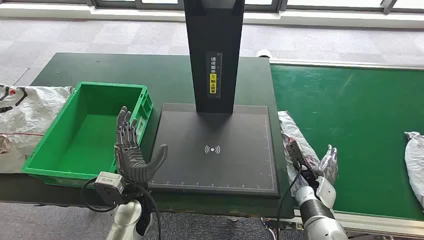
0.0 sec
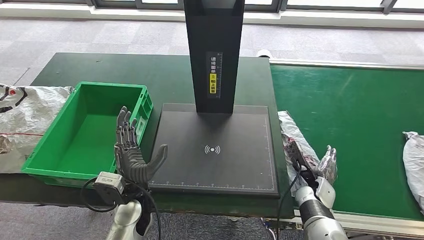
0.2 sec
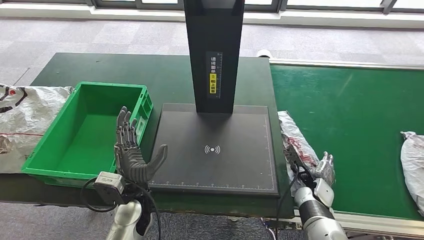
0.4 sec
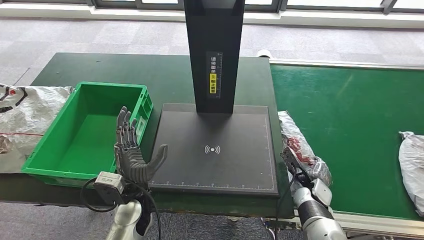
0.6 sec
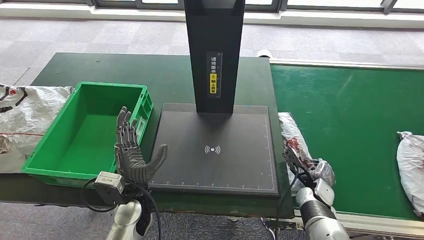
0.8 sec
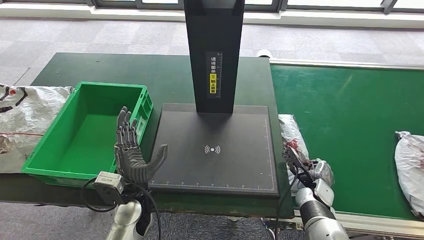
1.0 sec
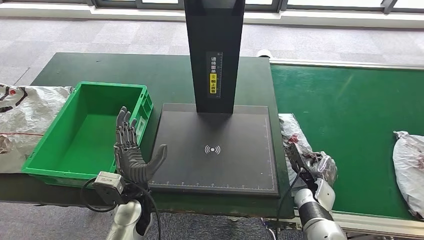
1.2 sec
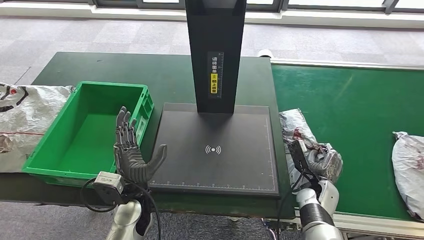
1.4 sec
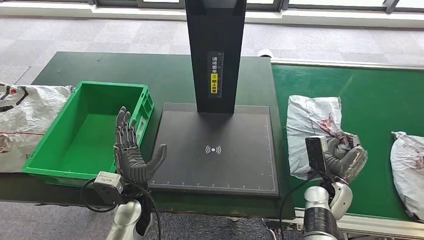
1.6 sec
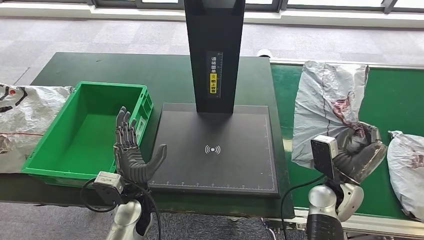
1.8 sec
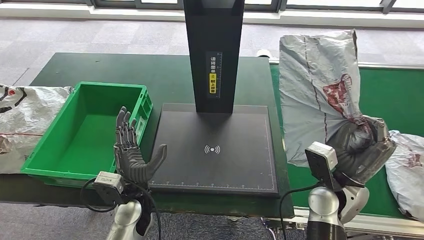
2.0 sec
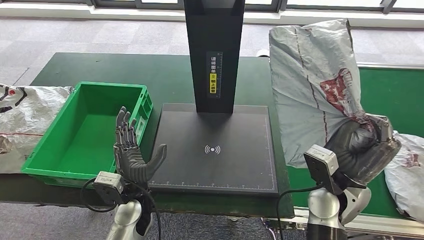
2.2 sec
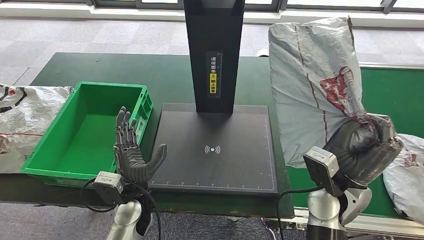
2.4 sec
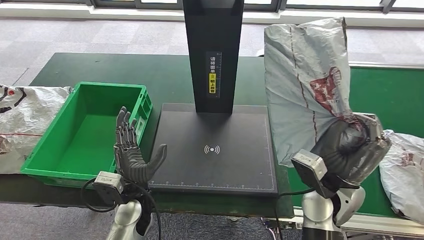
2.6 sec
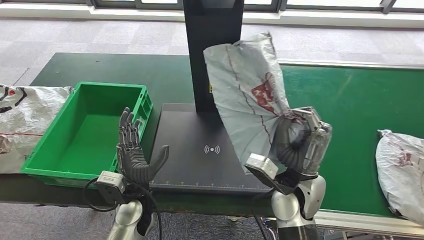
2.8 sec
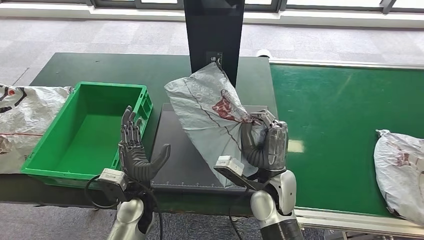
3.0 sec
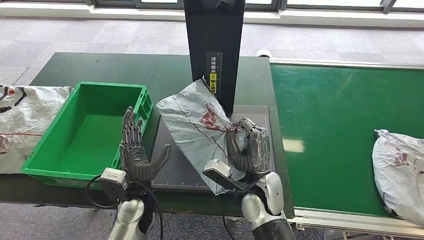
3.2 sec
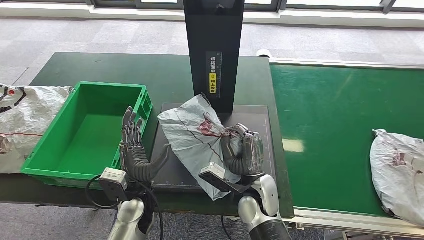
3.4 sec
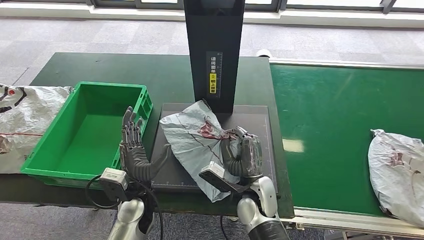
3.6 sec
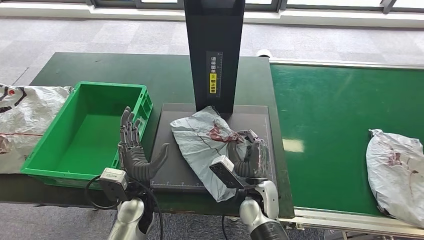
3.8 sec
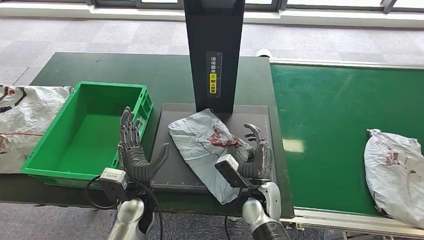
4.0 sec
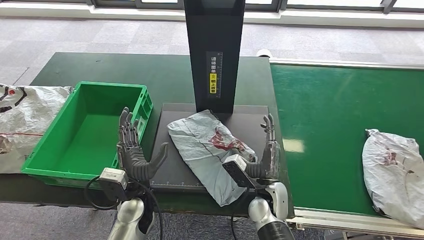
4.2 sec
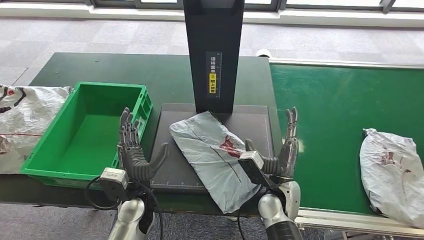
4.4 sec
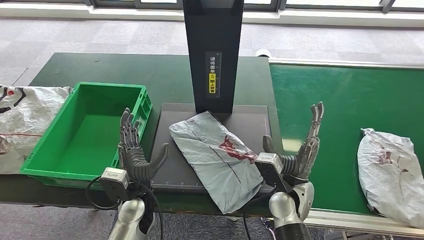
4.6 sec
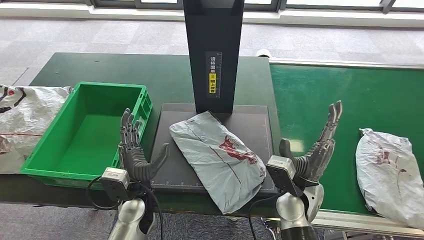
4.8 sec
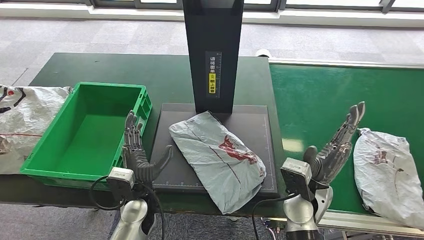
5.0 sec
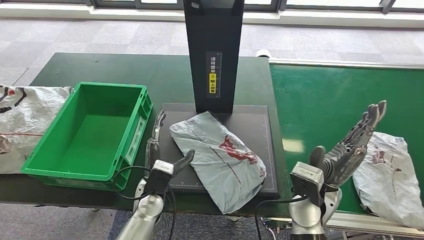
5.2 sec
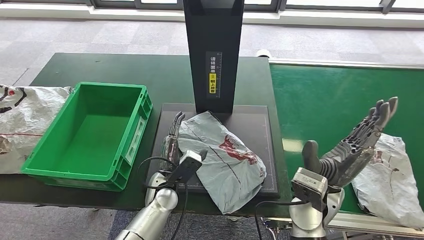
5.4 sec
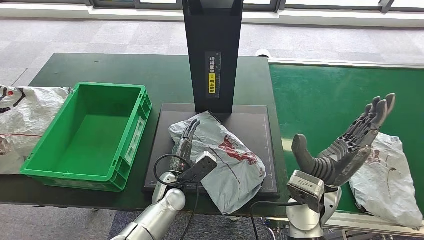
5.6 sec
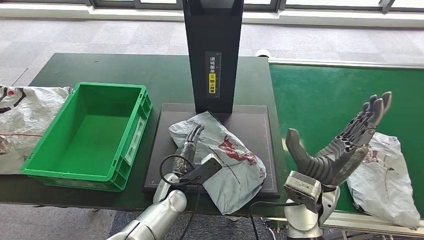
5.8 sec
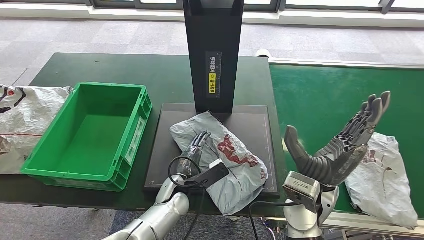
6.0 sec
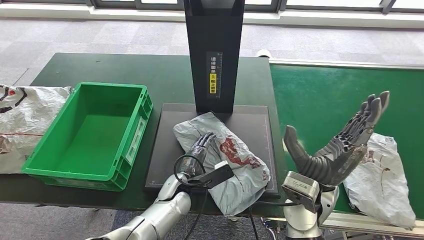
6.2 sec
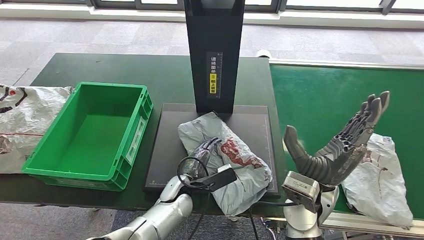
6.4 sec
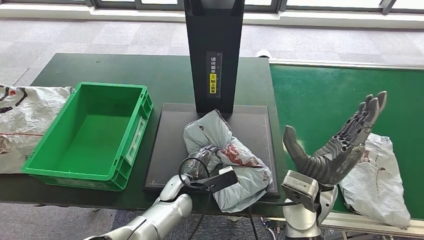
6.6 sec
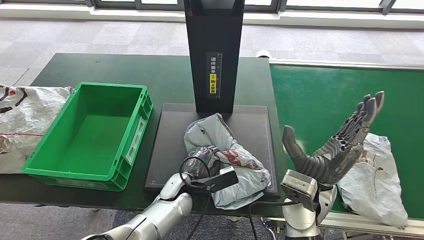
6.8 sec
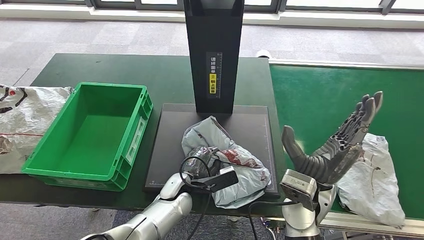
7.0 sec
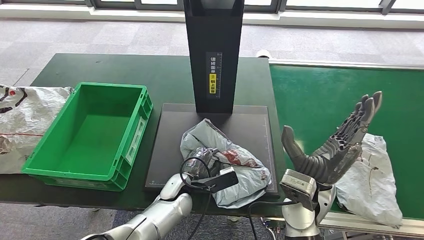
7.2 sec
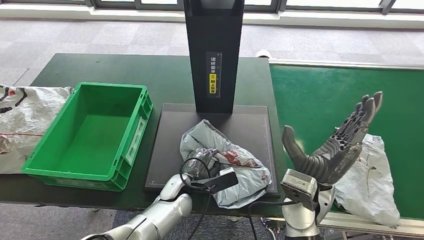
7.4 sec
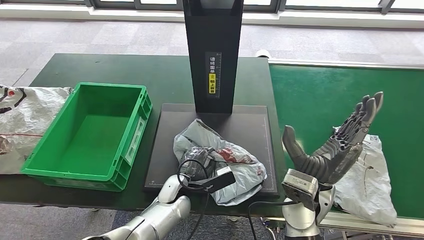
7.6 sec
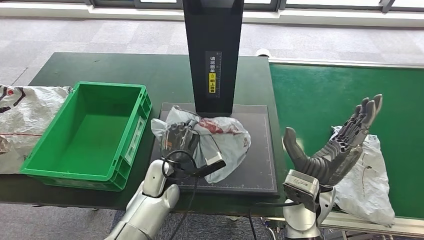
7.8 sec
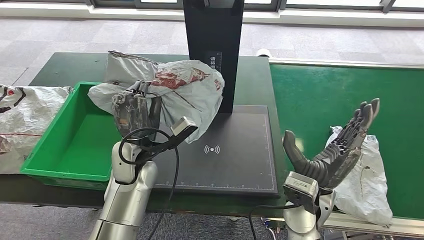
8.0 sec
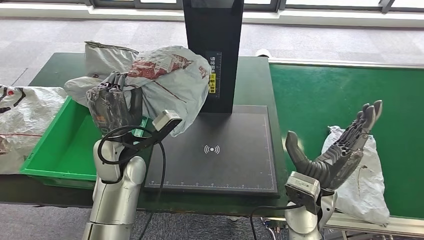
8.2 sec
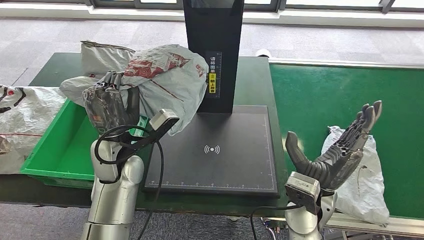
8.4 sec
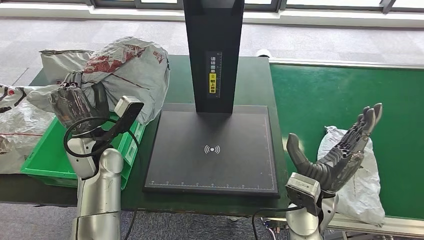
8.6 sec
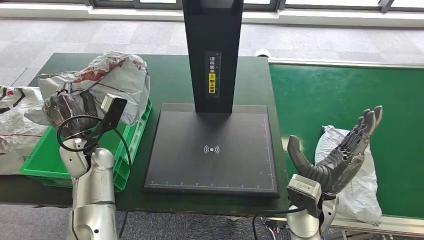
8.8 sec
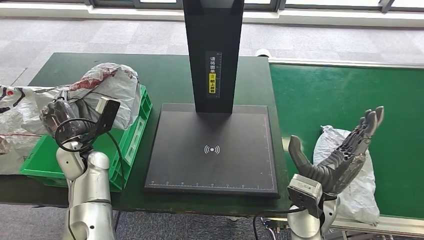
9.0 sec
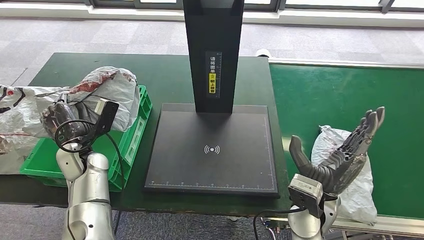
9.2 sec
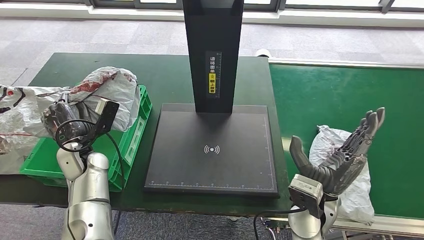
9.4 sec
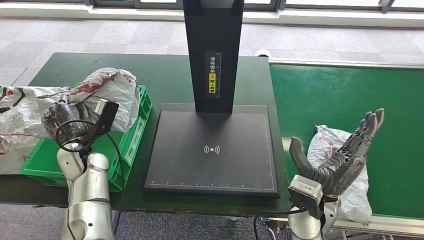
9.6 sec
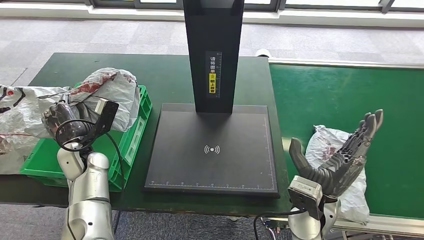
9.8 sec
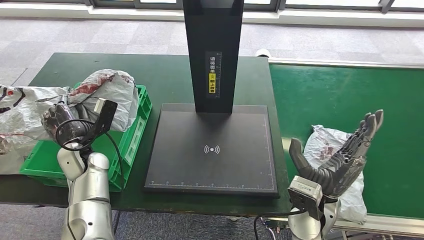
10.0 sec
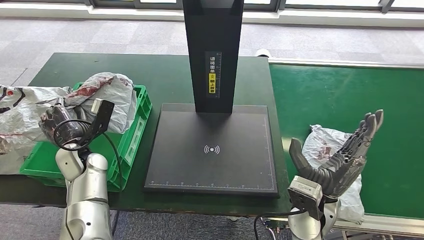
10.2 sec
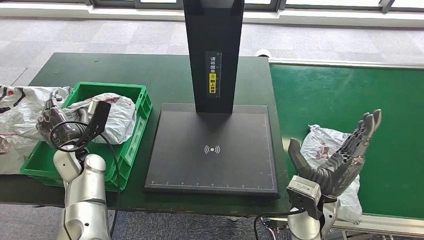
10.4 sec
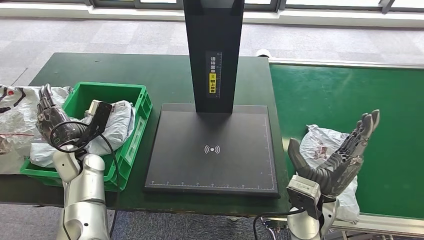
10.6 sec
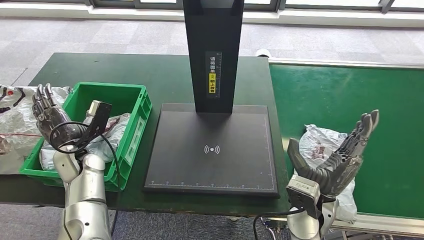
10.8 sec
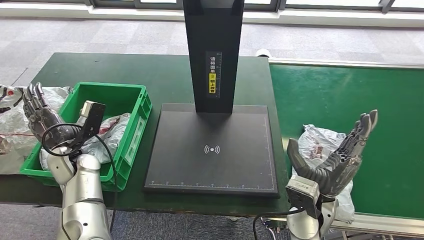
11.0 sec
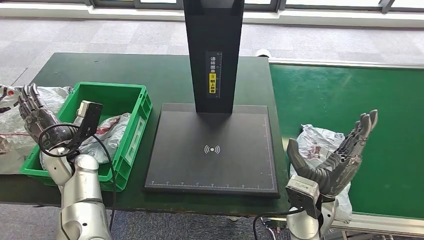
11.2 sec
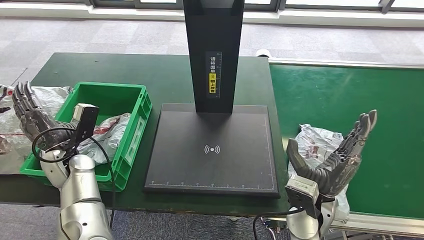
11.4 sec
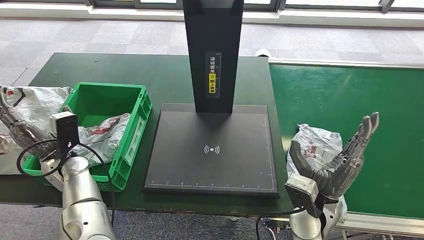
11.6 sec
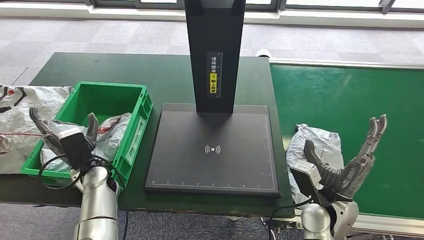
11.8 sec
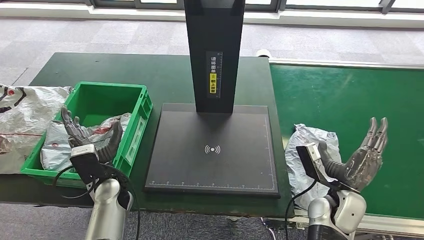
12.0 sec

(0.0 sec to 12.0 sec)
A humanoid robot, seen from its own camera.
Step, 0.0 sec - 2.2 sec: Take the parcel off the conveyor belt.
Step, 2.4 sec - 4.6 sec: Place the parcel onto the inbound machine.
Step, 4.8 sec - 8.8 sec: Pick up the parcel from the inbound machine.
Step, 9.0 sec - 12.0 sec: Put the parcel inside the courier box.
3.0 sec - 4.4 sec: The right hand goes about 5 cm downward.
4.4 sec - 6.0 sec: The left hand is displaced to the right and downward by some 10 cm. The right hand heads upward, covering roughly 10 cm.
6.0 sec - 7.6 sec: The hands make only small movements.
9.0 sec - 10.4 sec: The hands move only a little.
10.4 sec - 12.0 sec: The right hand goes roughly 10 cm to the right and downward; the left hand moves to the right and backward, approximately 10 cm.

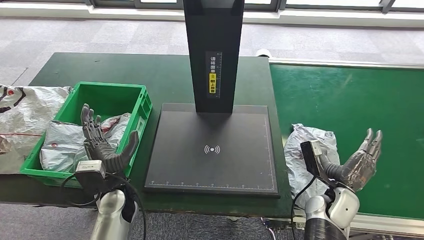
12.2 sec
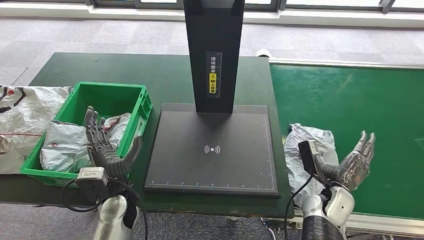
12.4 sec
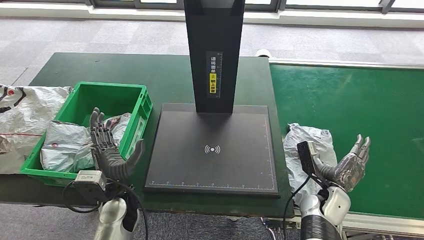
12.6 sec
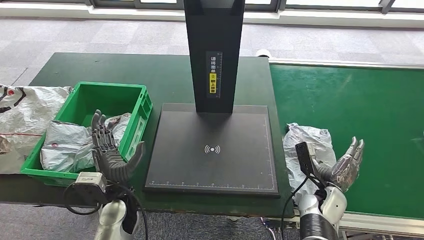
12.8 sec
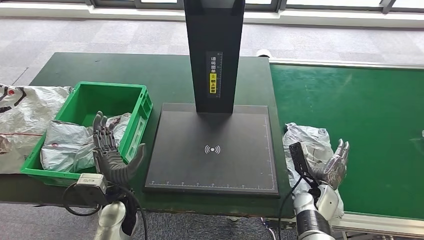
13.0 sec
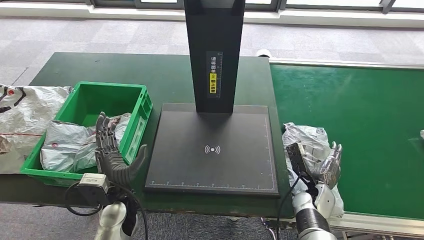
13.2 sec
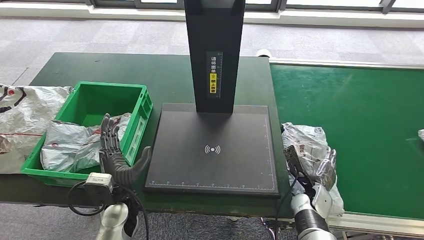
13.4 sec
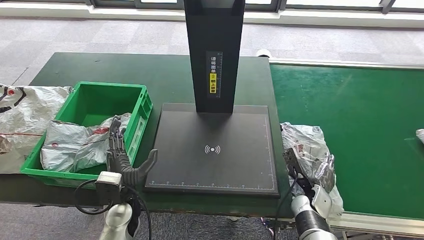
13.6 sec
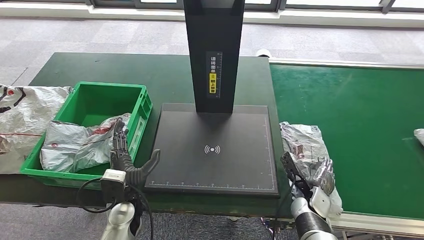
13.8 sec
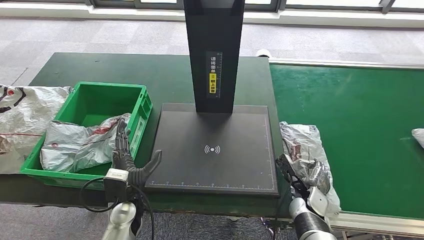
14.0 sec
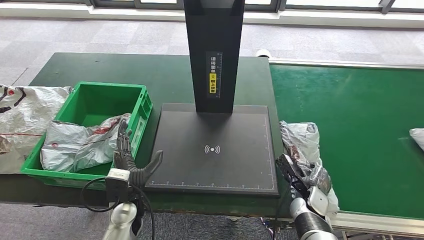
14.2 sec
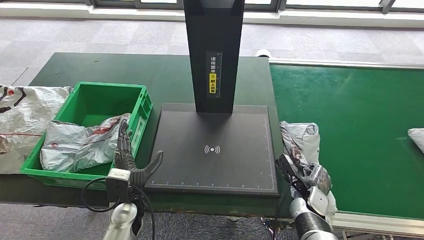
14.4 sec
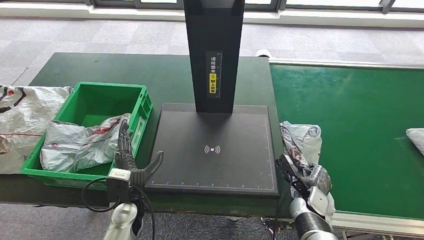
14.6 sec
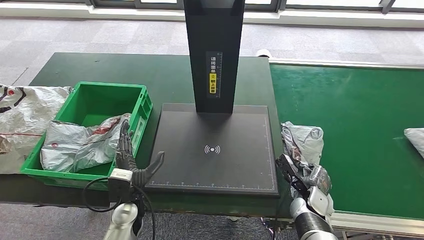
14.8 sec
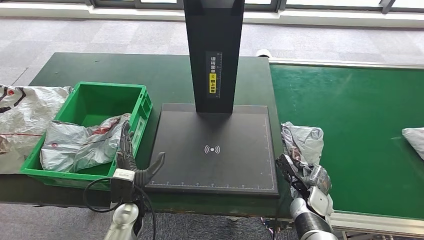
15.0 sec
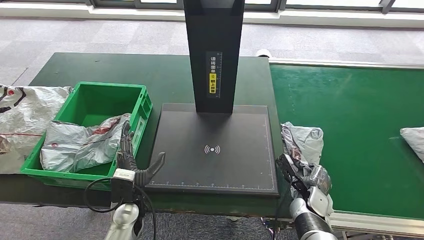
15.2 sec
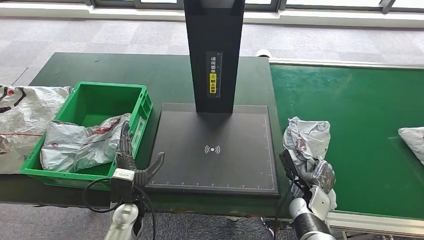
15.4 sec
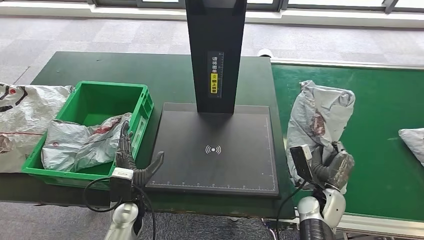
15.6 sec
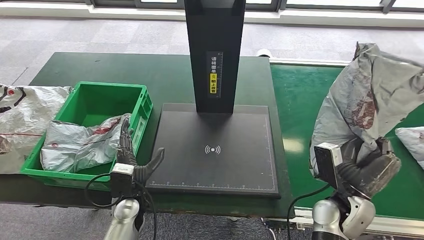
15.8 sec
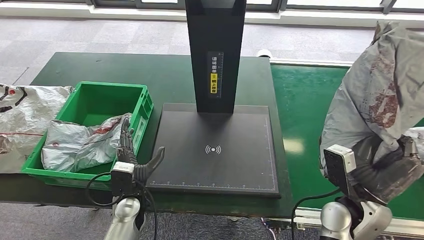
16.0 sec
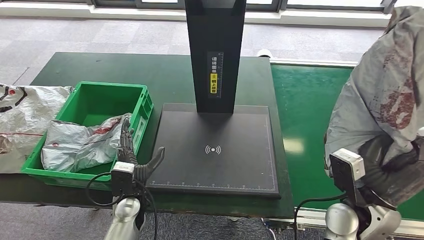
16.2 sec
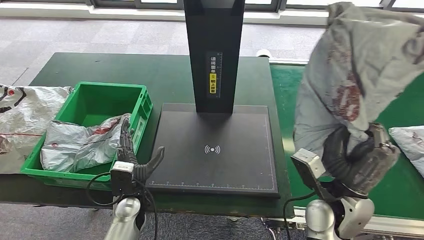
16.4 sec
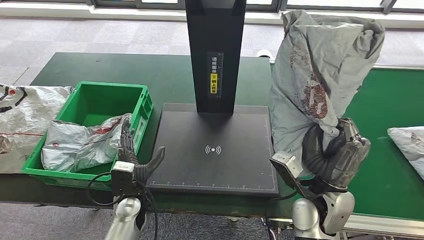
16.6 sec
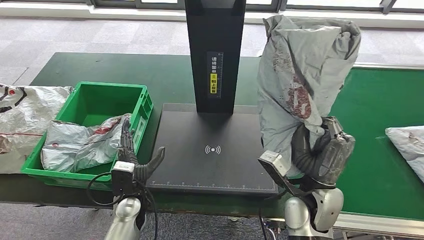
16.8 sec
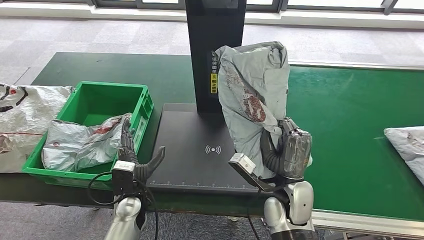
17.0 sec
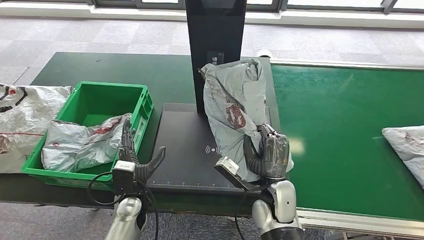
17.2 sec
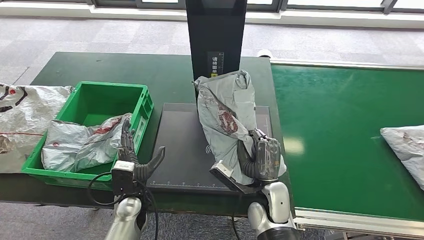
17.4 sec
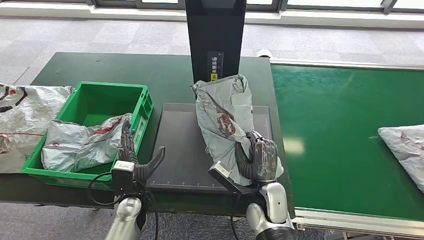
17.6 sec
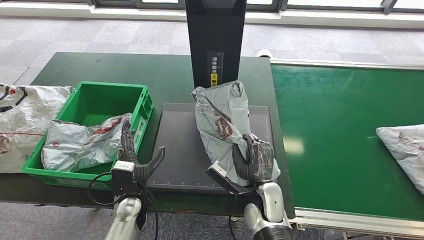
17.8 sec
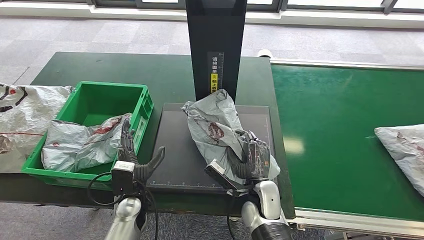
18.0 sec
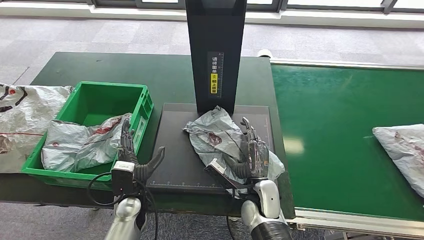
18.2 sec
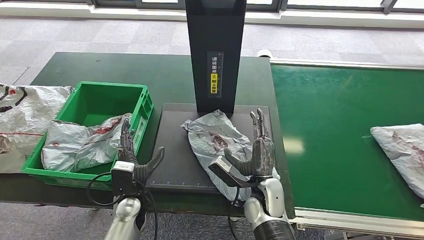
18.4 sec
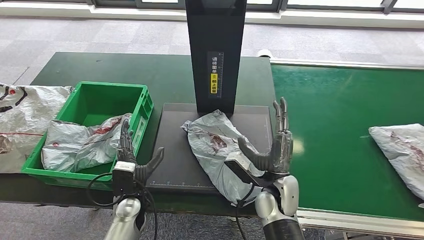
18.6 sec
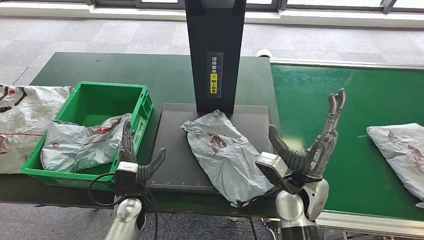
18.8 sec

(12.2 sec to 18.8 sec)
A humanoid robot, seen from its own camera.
Step, 12.2 sec - 16.0 sec: Pick up the parcel from the conveyor belt.
12.2 sec - 13.8 sec: The right hand travels downward by roughly 5 cm.
13.8 sec - 15.4 sec: The hands make only small movements.
15.4 sec - 17.2 sec: The right hand goes roughly 15 cm to the left and upward.
17.2 sec - 18.8 sec: The right hand ends up approximately 5 cm from where it was.
